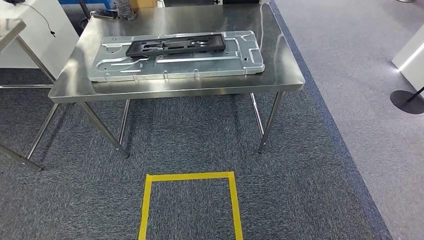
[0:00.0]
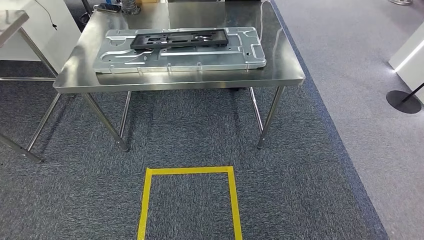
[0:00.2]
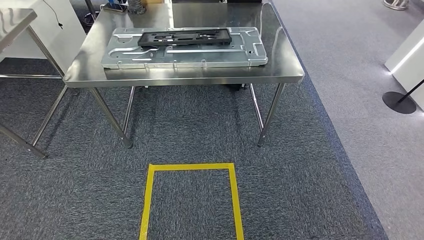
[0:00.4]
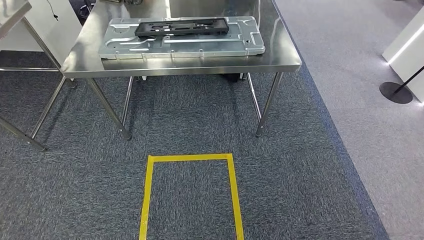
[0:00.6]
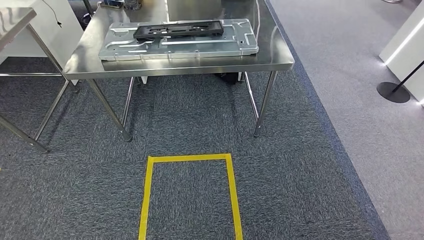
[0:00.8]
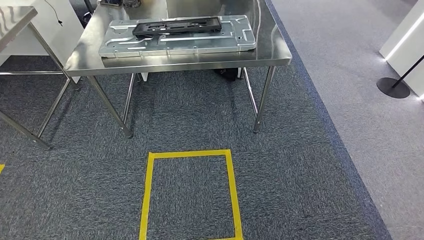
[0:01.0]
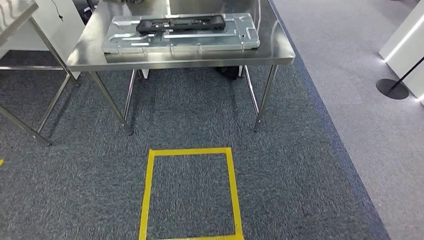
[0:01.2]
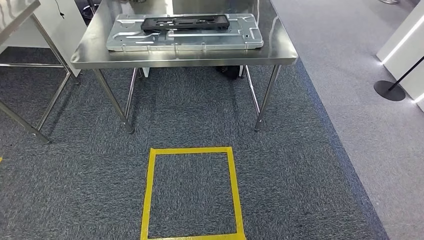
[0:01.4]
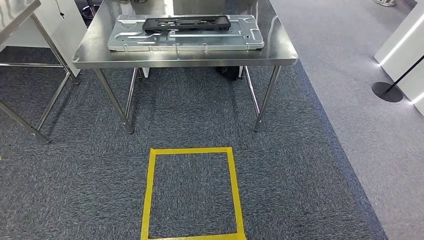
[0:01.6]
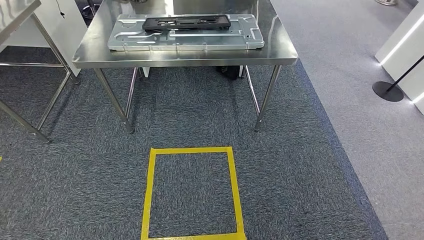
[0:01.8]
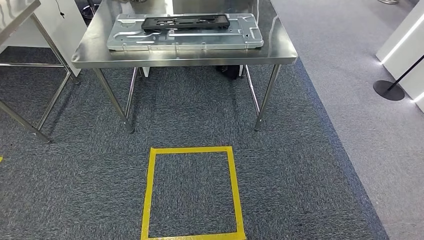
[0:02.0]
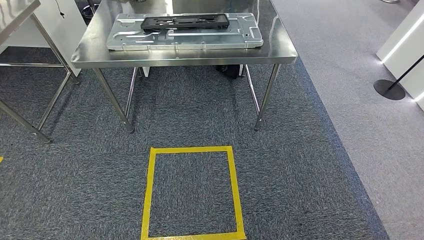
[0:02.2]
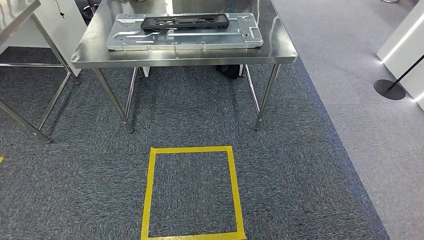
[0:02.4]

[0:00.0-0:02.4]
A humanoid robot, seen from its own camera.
Step, 0:00.0 to 0:02.4: Return to the initial position at the shelf.
0:01.2 to 0:02.4: The hands make only small movements.
